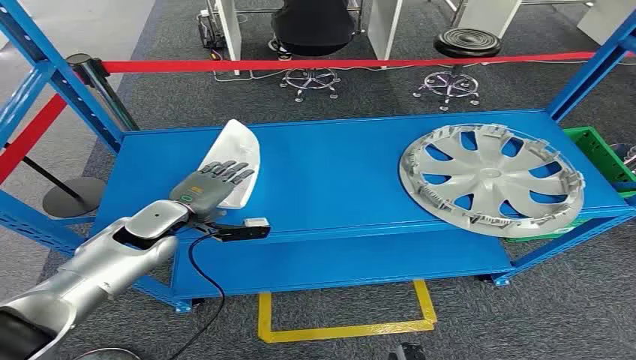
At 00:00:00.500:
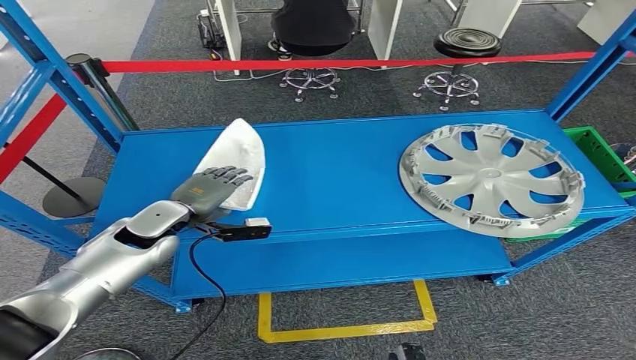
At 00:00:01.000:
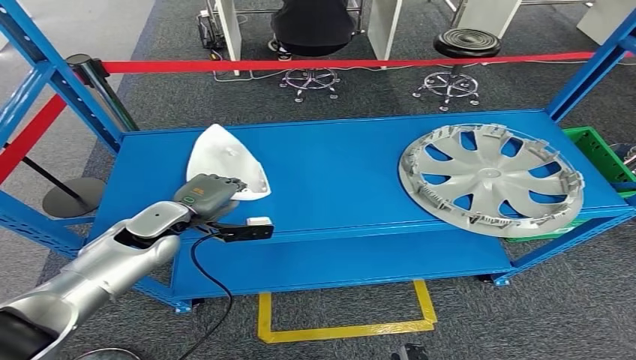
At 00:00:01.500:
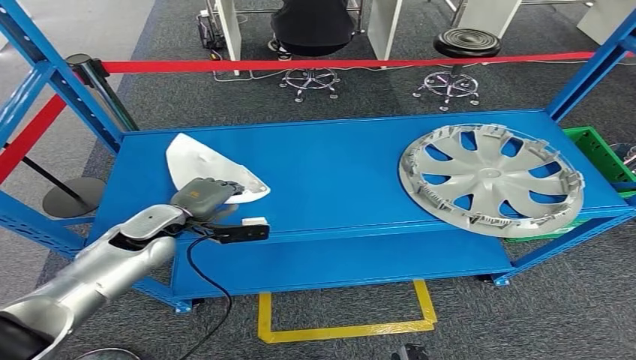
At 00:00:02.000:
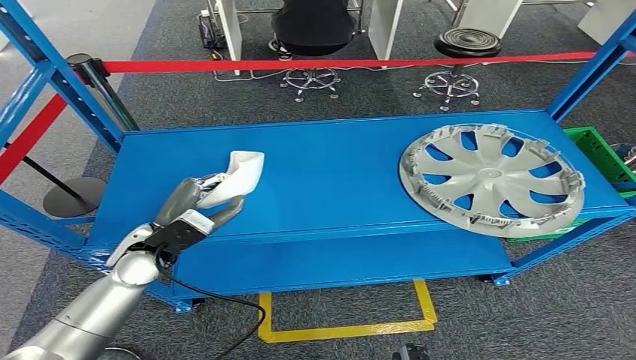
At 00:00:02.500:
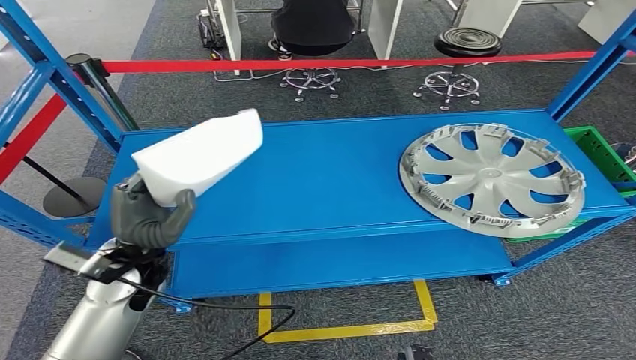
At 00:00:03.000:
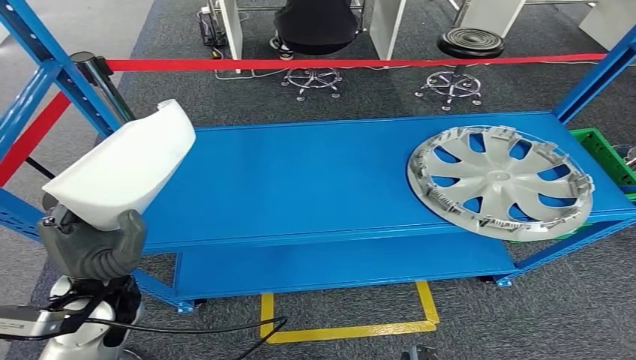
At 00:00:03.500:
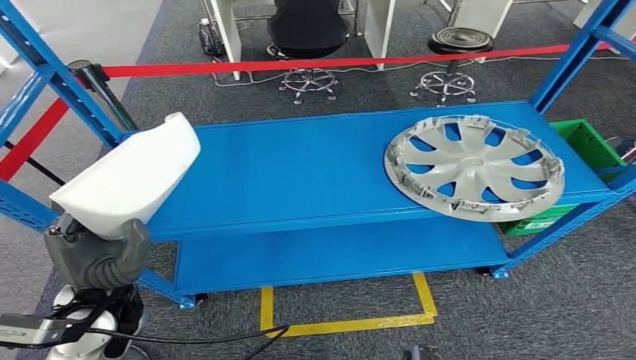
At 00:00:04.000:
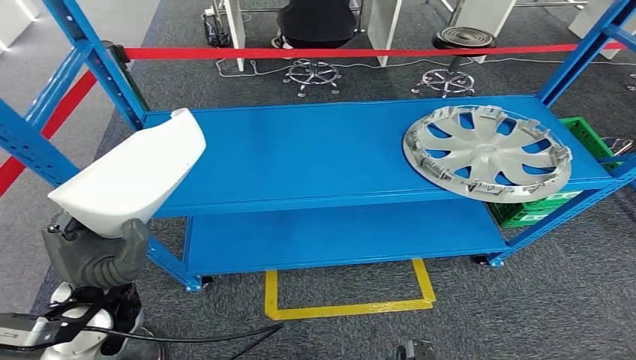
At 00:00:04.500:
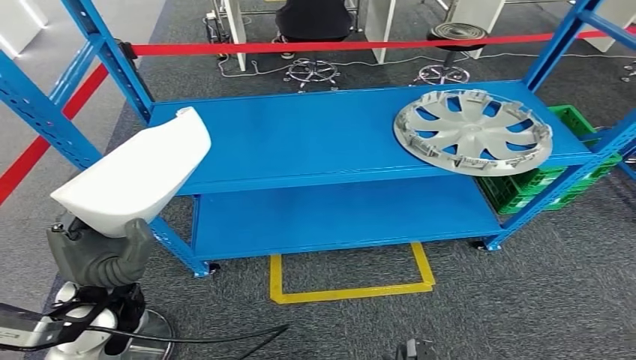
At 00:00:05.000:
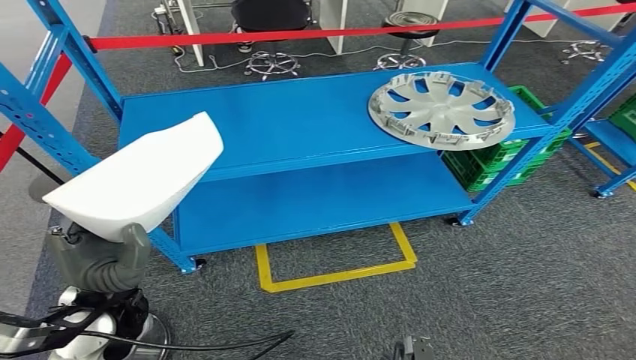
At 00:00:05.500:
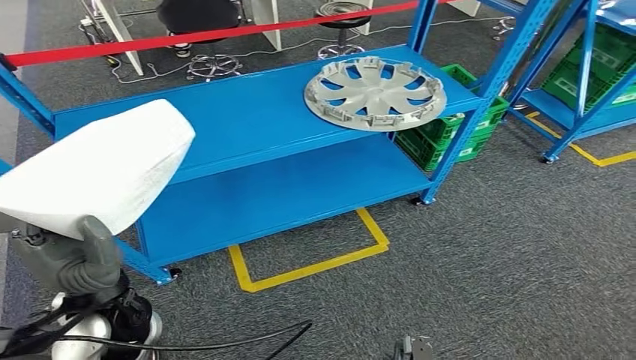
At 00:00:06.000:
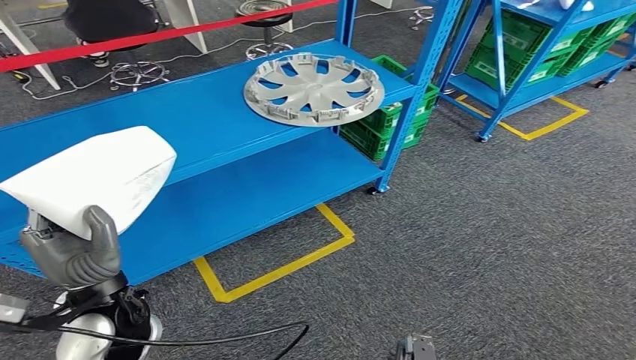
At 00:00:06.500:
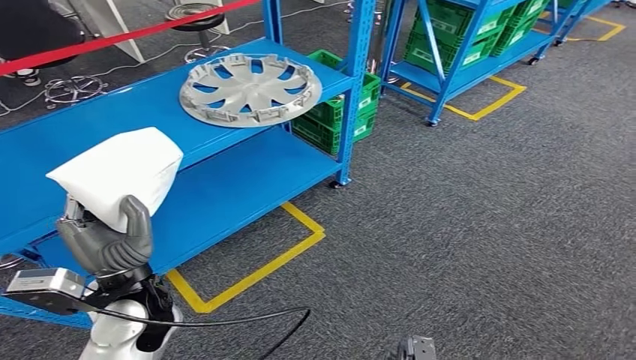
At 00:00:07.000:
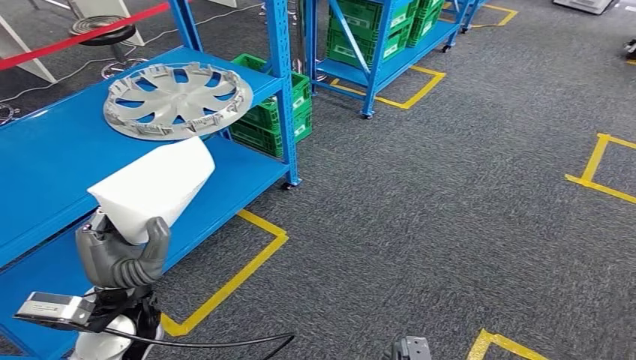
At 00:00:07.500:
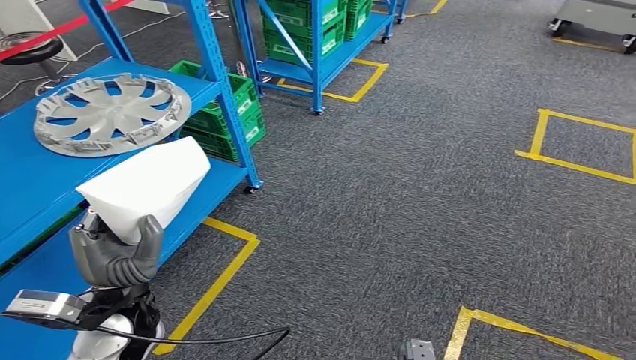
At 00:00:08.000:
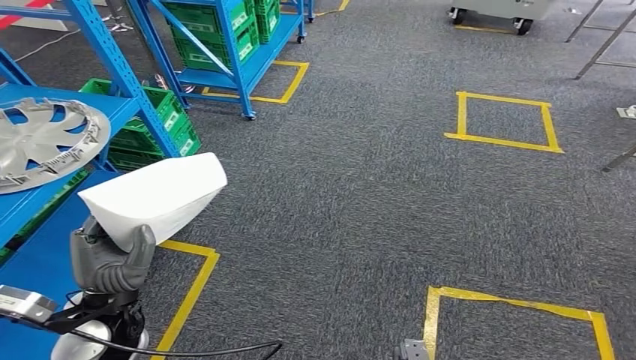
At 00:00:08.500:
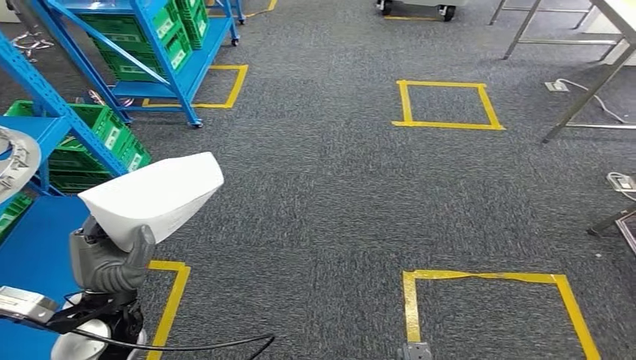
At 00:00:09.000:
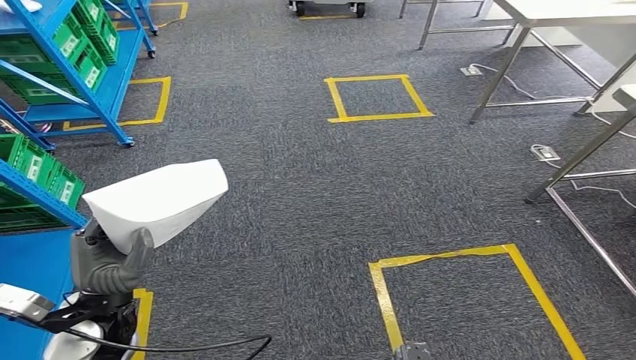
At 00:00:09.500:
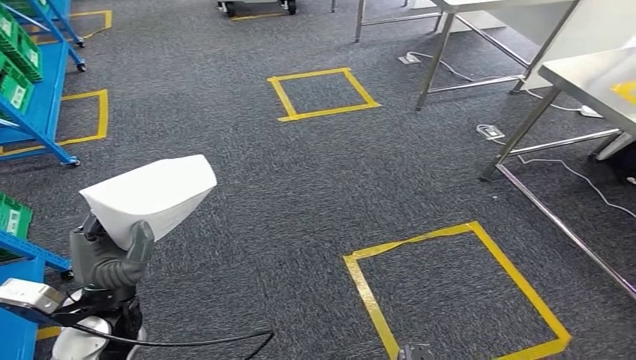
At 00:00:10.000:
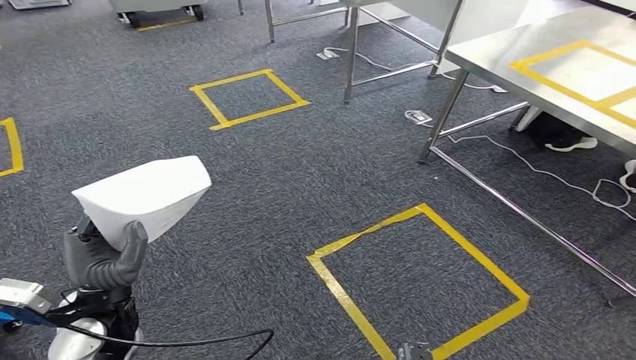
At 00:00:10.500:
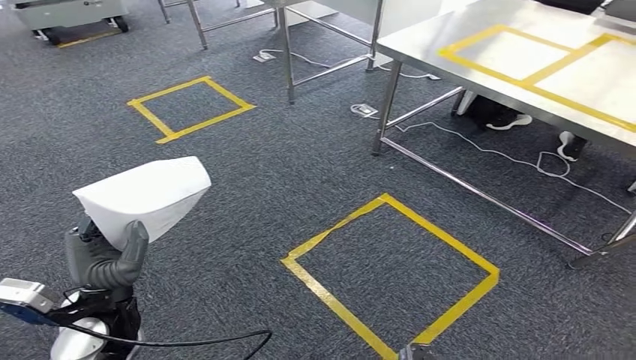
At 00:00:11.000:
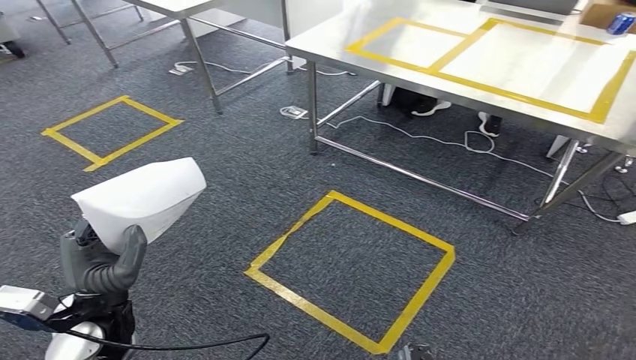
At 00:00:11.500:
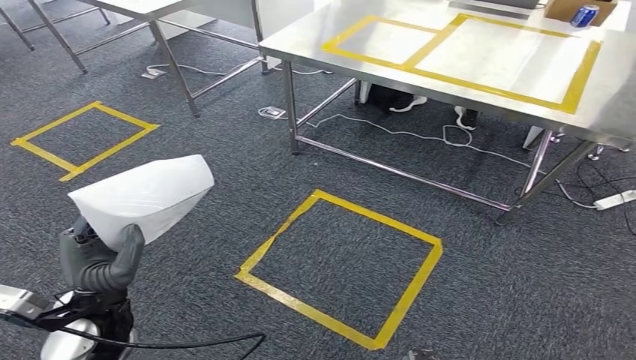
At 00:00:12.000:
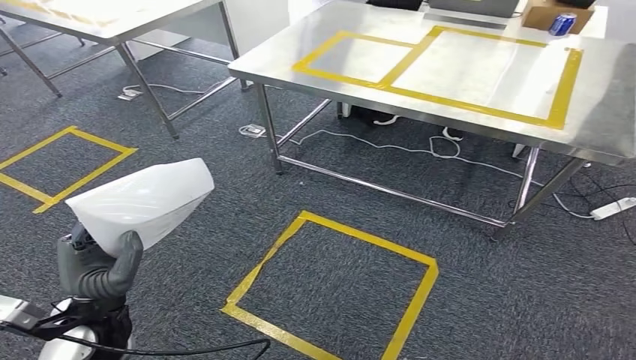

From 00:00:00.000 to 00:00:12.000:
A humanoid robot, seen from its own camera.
Step, from 00:00:00.000 to 00:00:04.000: Pick up the small component from the shelf.

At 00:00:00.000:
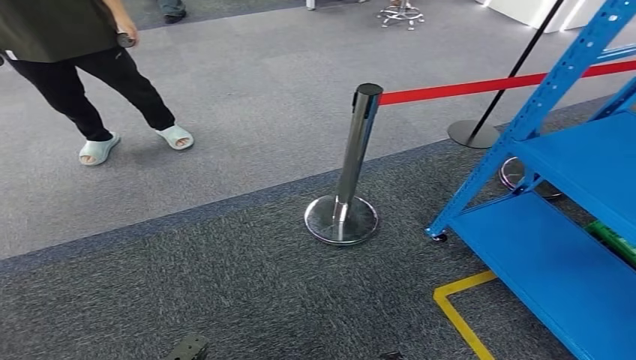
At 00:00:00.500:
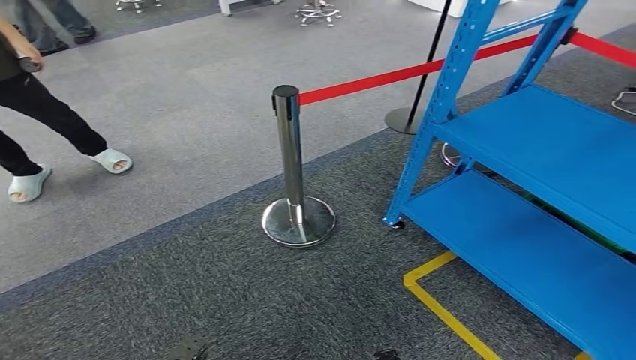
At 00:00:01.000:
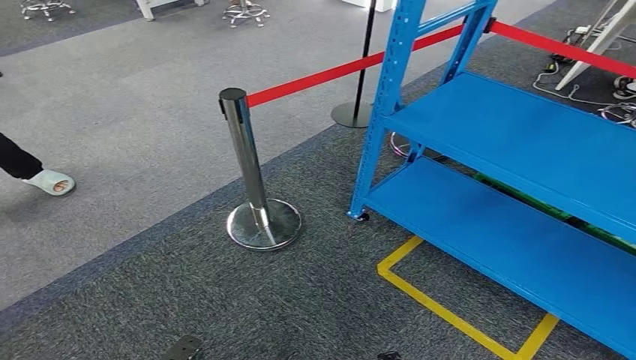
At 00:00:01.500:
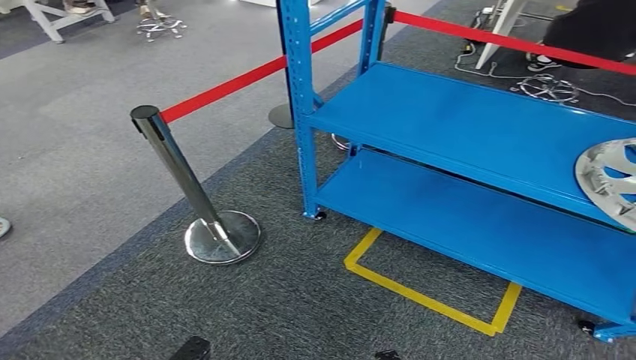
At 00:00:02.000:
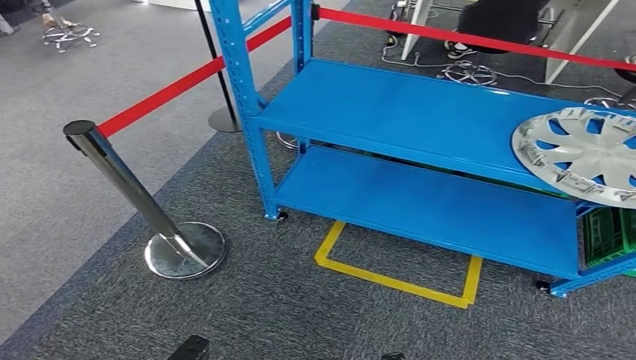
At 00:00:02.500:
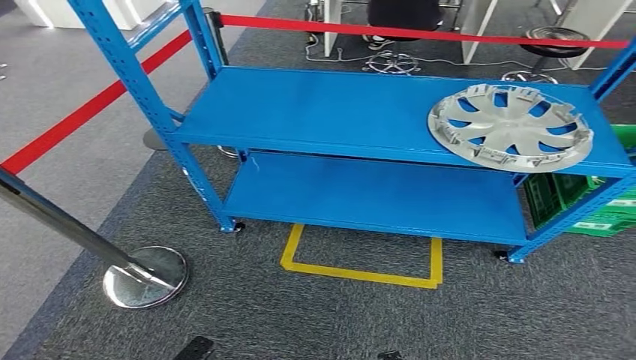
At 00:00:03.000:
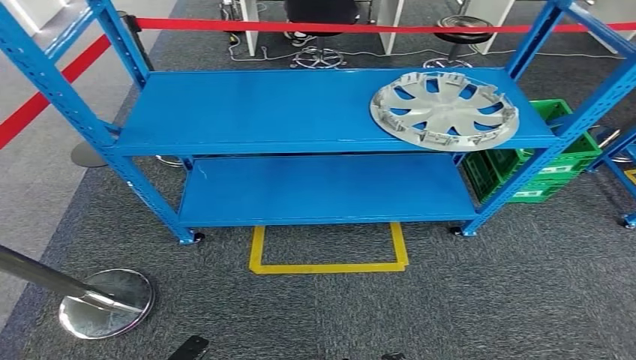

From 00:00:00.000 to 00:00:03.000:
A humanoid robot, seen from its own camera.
Step, from 00:00:00.000 to 00:00:03.000: Move to the initial position of the workbench.
